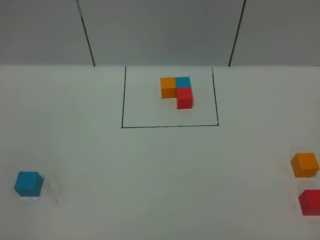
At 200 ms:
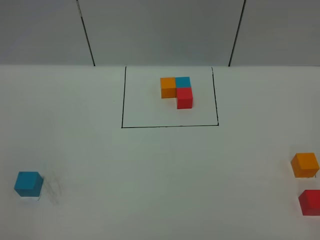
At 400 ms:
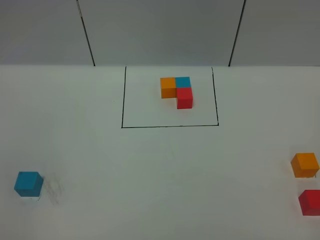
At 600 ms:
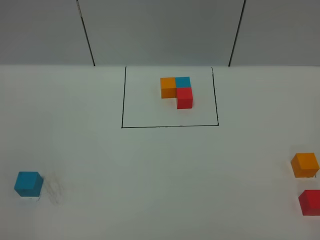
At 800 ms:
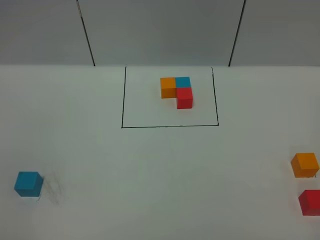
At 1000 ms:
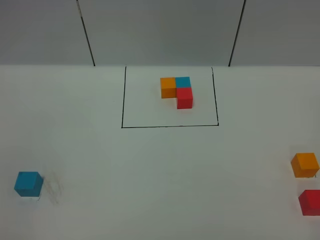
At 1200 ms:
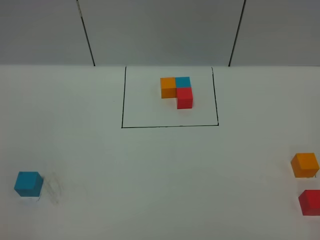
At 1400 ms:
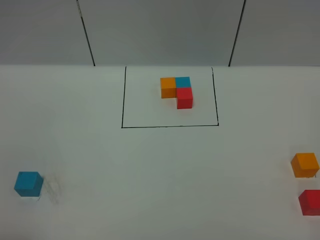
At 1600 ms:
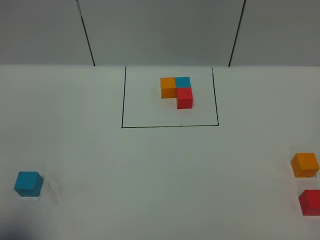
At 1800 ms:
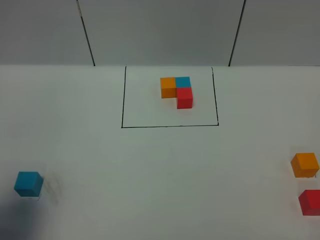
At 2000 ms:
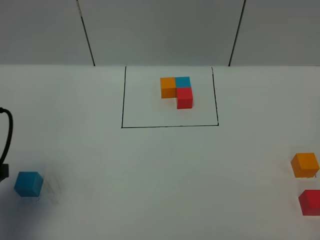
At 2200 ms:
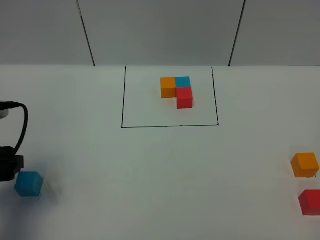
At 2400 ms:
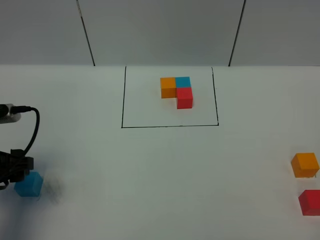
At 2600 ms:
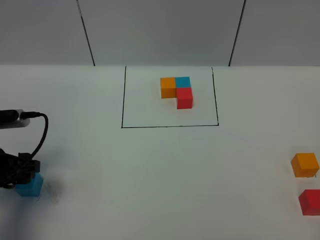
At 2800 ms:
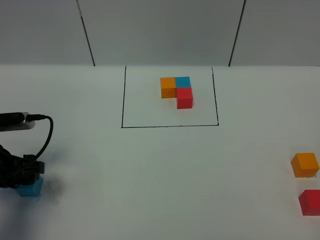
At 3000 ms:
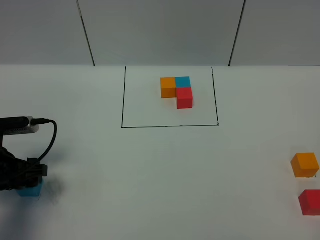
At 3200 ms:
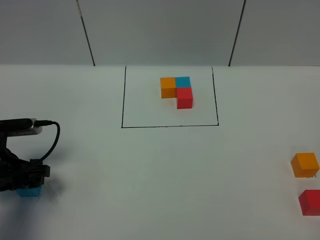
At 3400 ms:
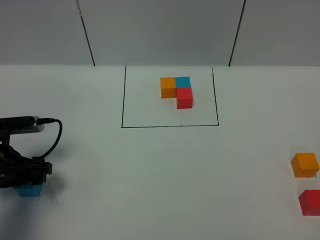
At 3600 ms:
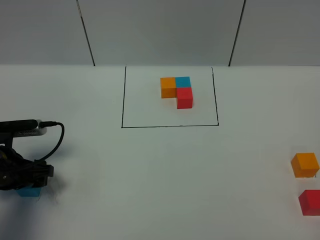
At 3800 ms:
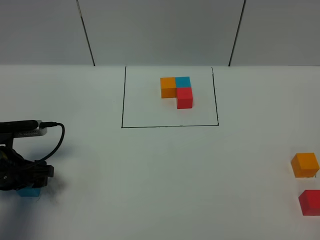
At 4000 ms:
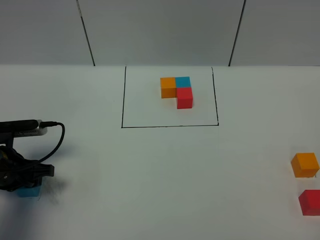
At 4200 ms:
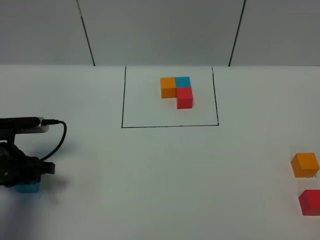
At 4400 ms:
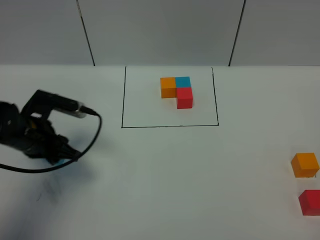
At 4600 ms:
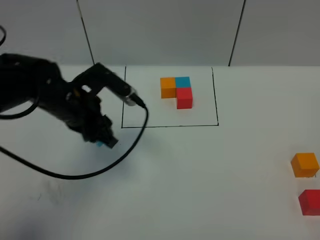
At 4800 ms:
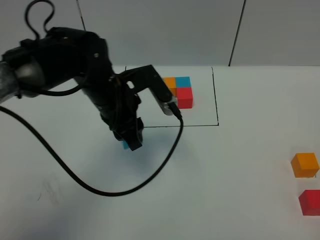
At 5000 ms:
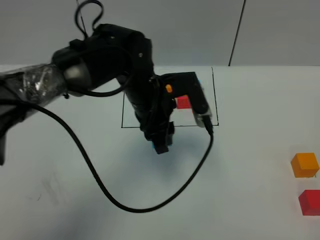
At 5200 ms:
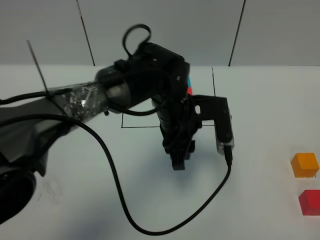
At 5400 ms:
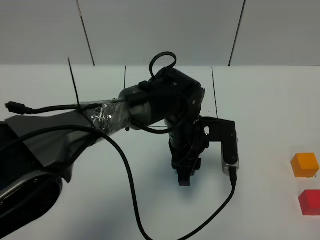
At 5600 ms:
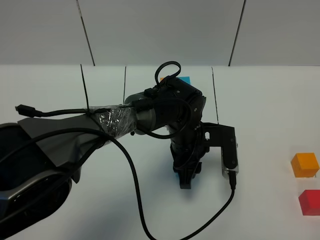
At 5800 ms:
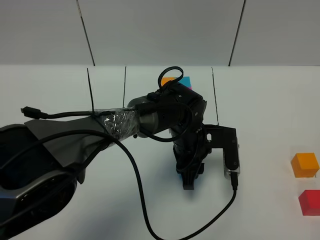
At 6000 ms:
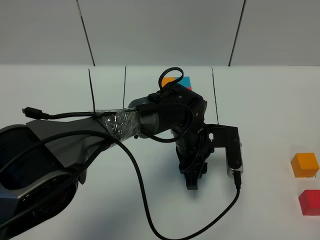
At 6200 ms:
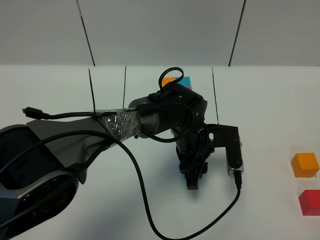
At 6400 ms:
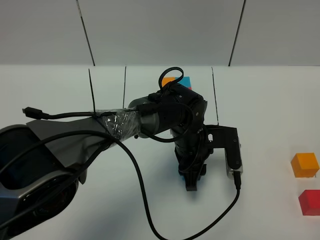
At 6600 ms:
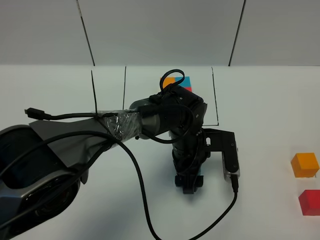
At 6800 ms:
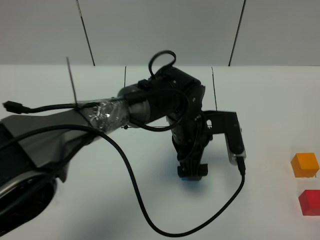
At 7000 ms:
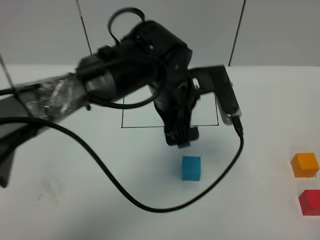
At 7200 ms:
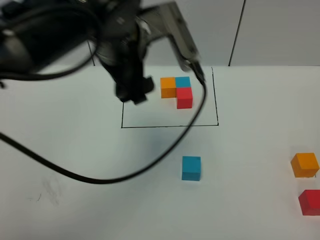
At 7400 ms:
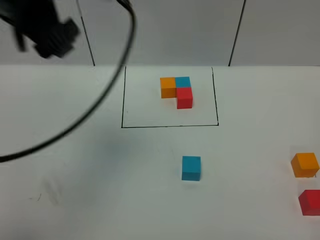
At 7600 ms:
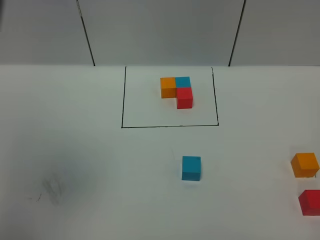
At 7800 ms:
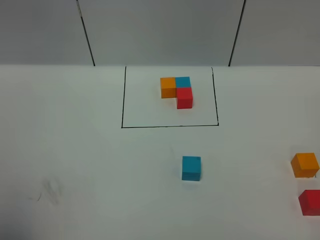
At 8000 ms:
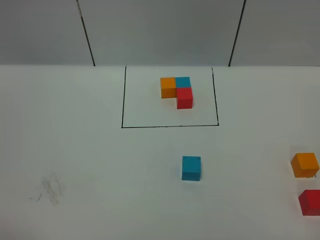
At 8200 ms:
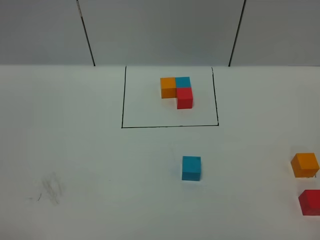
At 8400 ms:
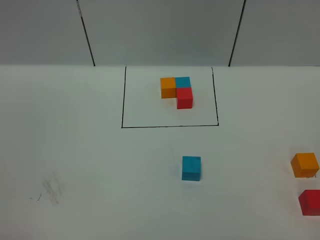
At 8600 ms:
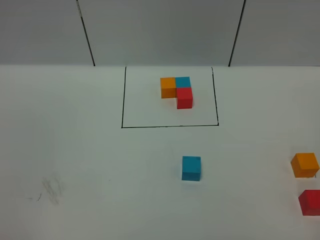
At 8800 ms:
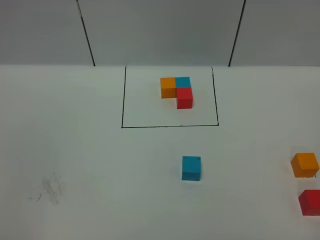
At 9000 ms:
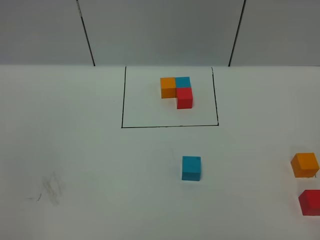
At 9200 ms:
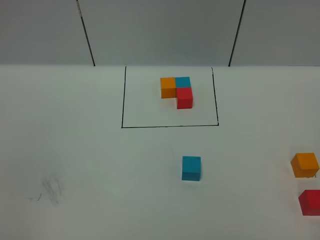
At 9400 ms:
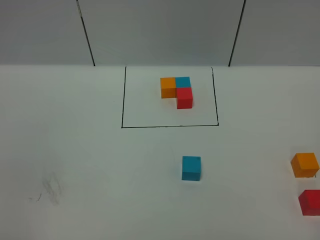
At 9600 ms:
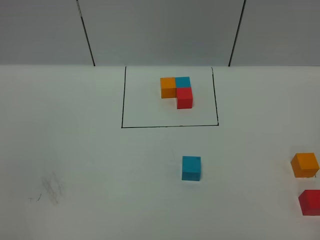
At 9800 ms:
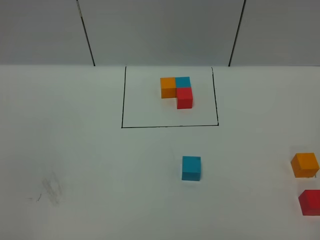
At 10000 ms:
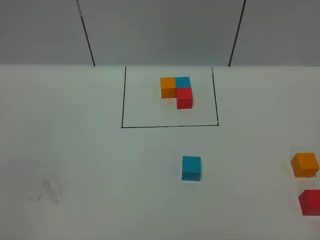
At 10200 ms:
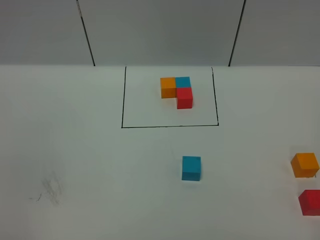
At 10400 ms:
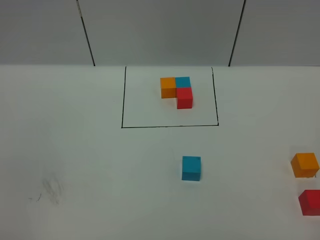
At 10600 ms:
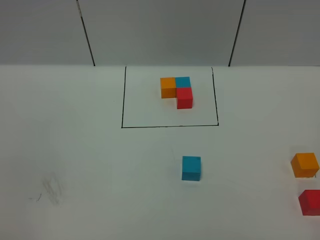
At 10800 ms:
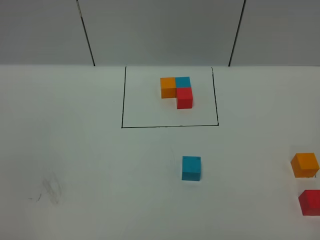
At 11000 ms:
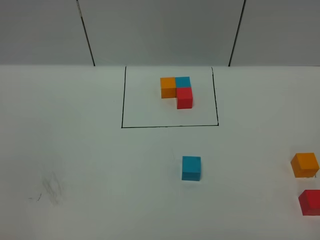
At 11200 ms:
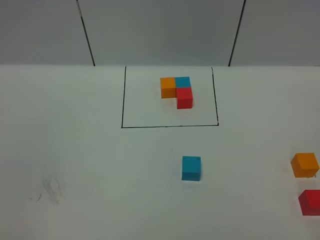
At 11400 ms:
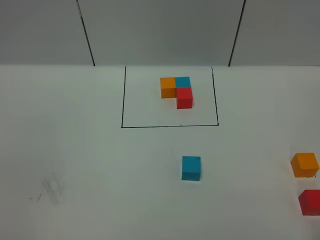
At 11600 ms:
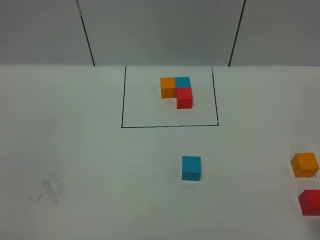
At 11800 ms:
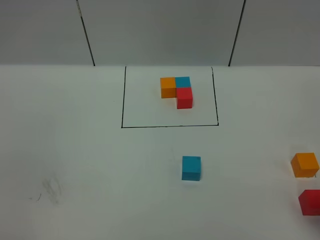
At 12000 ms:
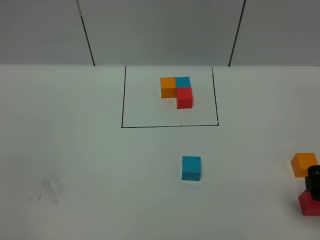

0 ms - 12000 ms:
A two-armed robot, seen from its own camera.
Task of the whole recording: According to the building block template in front, assemble the scattered blocks together.
Step, 2000 ms - 7000 ms: Put the blue cube in the center of the table.
0 ms - 1600 ms: The left gripper shifts about 10 cm forward.
1600 ms - 3000 ms: The left gripper heads forward and downward, covering some 20 cm.
3000 ms - 4400 ms: The left gripper heads to the right and forward, covering about 10 cm, and closes.
4400 ms - 6000 ms: The left gripper shifts roughly 30 cm to the right.
6000 ms - 7600 ms: The left gripper goes some 50 cm upward and to the left, and opens.
7600 ms - 9000 ms: The left gripper goes roughly 30 cm downward and backward.
10400 ms - 12000 ms: The right gripper is displaced forward by some 20 cm, and opens up.

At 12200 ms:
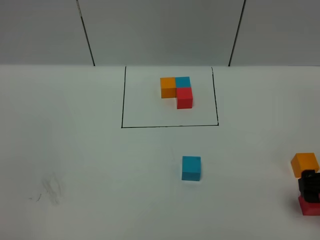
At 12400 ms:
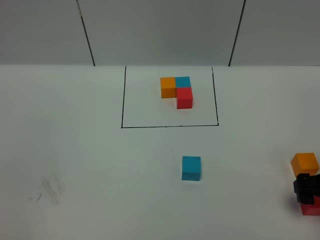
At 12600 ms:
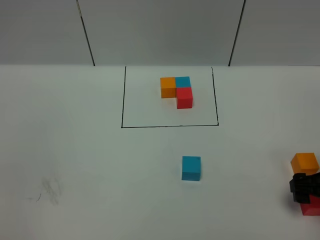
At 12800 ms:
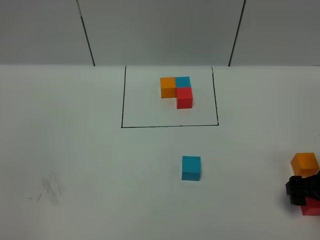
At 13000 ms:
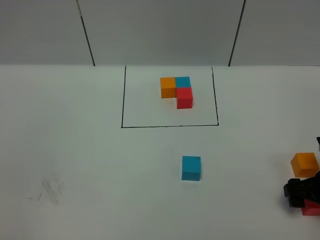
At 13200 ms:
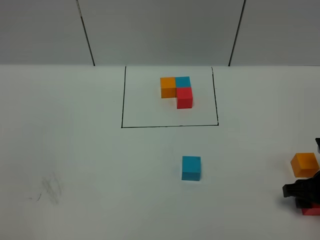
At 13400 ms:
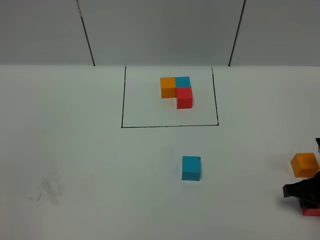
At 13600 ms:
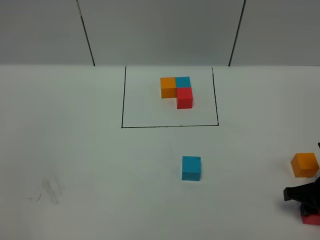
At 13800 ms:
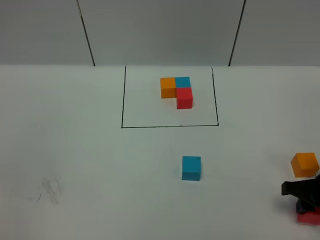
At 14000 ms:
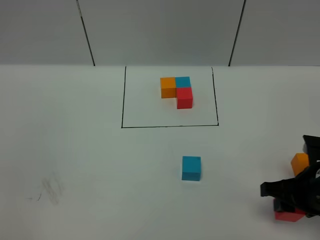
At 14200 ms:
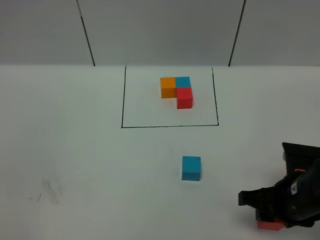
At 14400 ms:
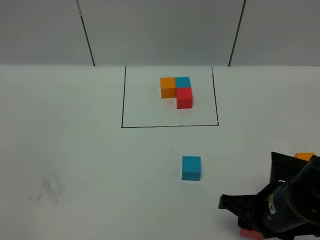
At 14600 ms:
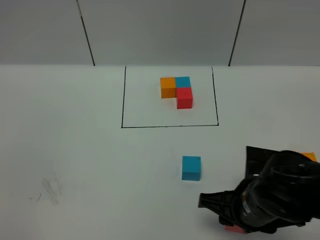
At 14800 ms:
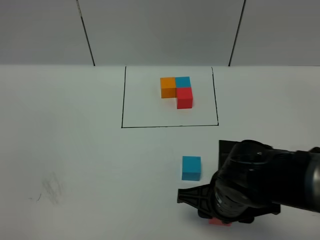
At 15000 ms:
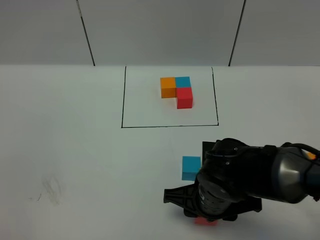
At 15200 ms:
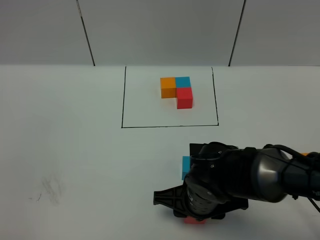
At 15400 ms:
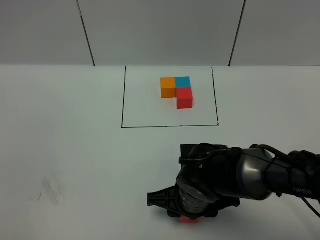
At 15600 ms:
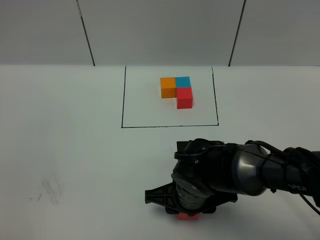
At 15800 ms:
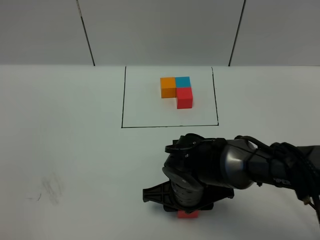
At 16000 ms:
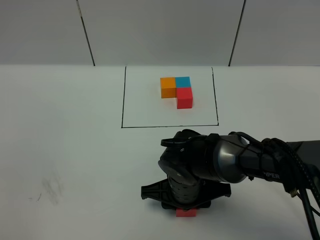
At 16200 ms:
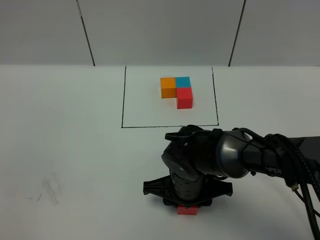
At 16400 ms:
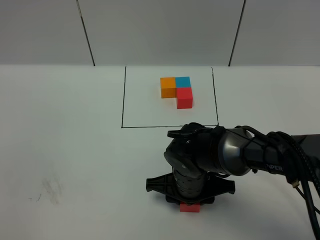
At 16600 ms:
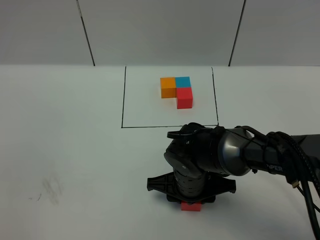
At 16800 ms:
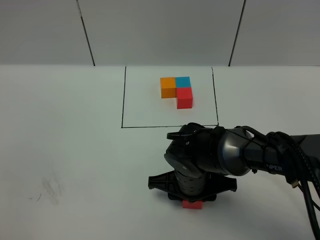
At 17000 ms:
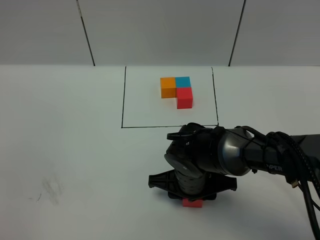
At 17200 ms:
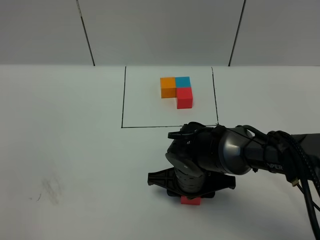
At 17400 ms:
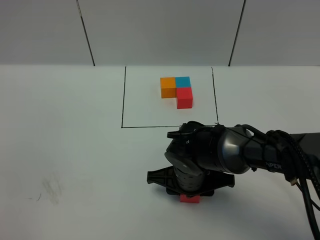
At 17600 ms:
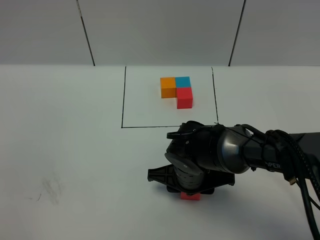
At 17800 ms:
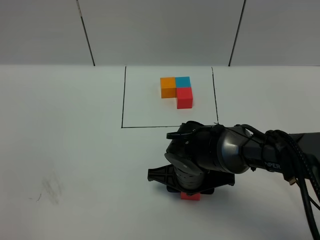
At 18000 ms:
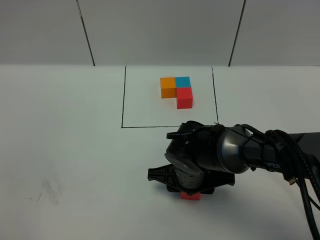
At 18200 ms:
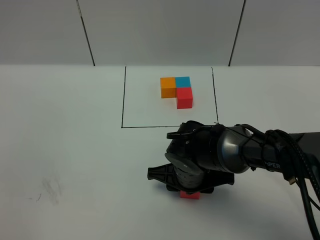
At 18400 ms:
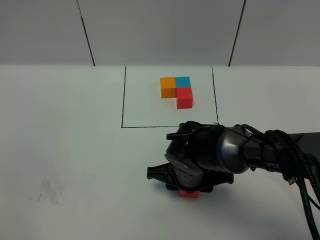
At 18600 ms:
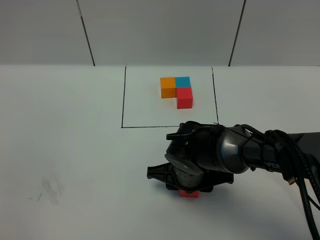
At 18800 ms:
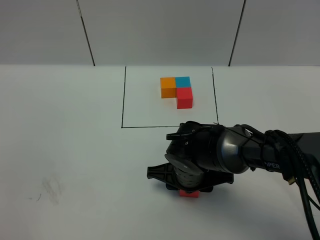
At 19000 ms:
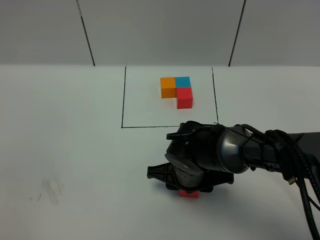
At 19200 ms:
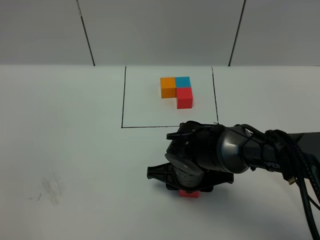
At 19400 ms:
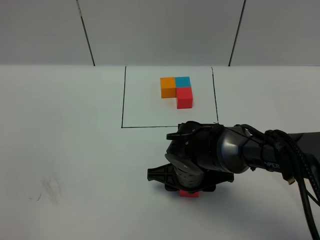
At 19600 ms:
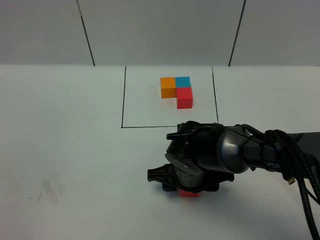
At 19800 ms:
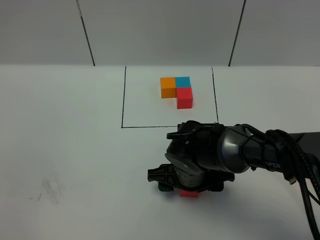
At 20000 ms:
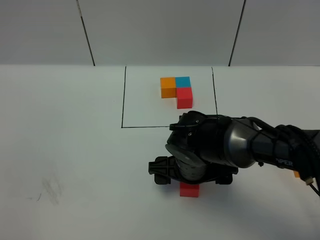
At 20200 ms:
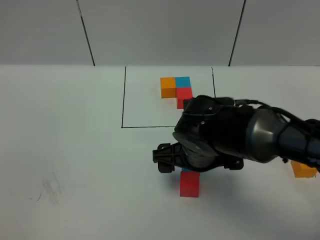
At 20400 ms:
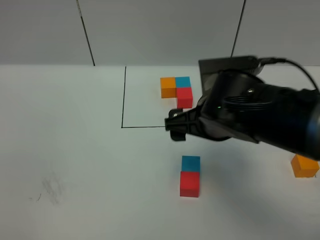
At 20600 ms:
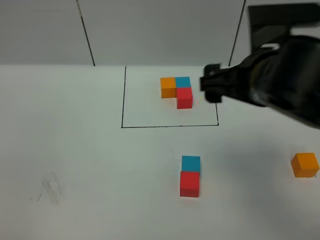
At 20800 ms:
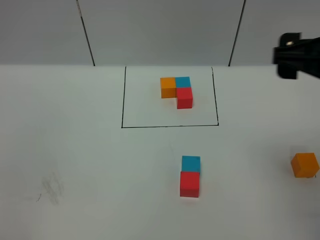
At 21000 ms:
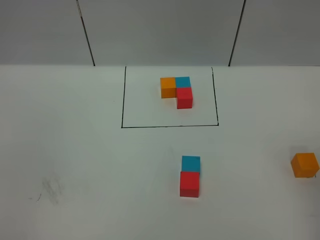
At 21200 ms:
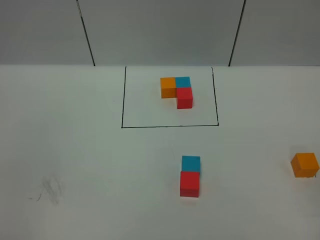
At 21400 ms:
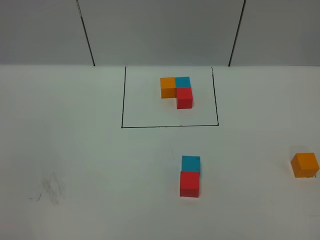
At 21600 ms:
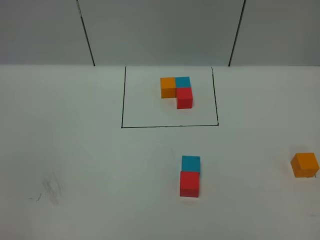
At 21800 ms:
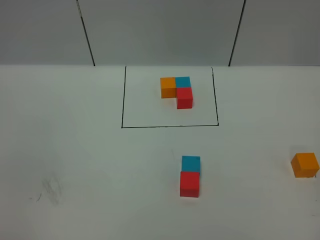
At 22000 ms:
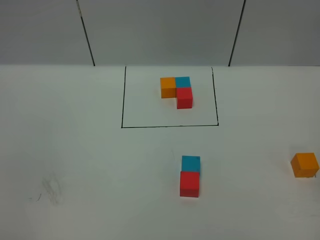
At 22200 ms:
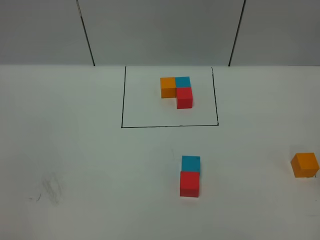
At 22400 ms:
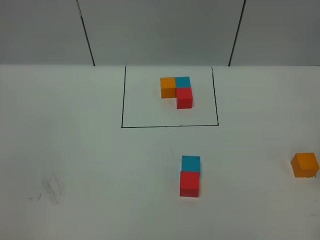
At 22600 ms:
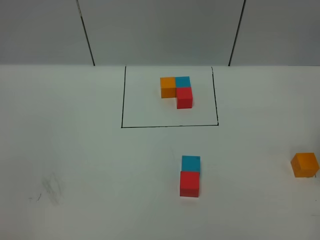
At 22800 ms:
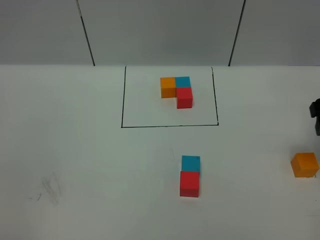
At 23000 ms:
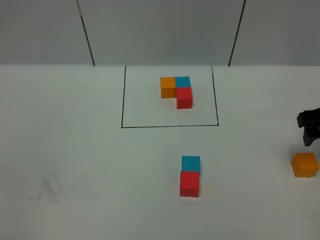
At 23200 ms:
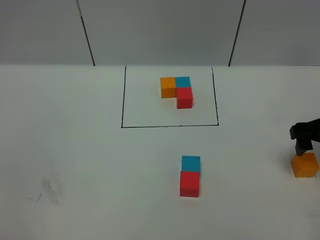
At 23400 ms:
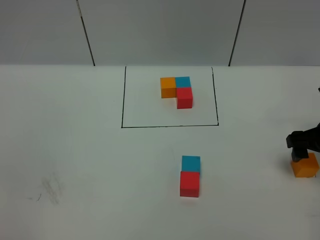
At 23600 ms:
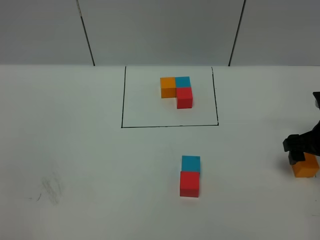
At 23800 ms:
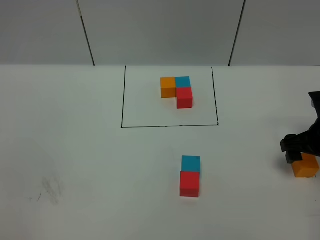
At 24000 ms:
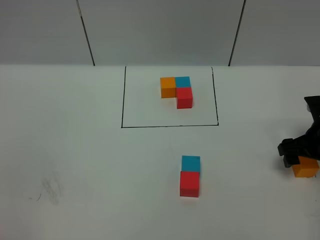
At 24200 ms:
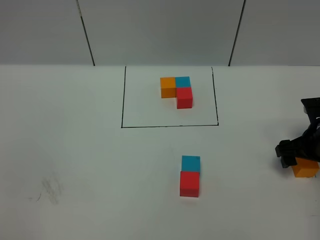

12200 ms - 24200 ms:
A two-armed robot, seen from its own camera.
Task of the whole recording: According to the building block template in front, assemble the scattered blocks together.
Step, 12200 ms - 20200 ms: Put the red cube in the front of the blue cube.
12200 ms - 13800 ms: The right gripper closes.
13800 ms - 15200 ms: The right gripper moves to the left, roughly 25 cm.
15200 ms - 18200 ms: The grippers move only a little.
18200 ms - 19800 ms: The right gripper opens up.
19800 ms - 21200 ms: The right gripper is displaced upward and to the right by roughly 40 cm.
22600 ms - 24200 ms: The right gripper heads downward, covering roughly 15 cm.
